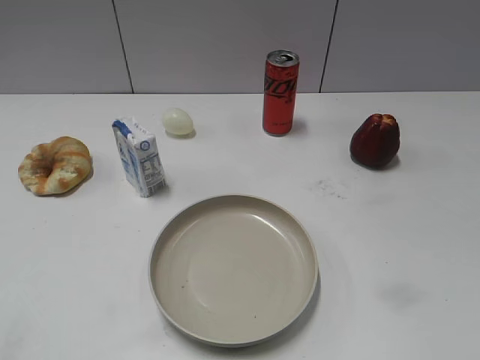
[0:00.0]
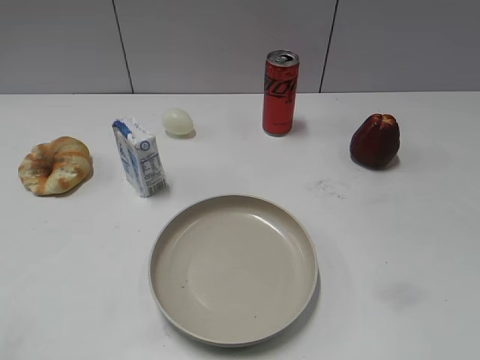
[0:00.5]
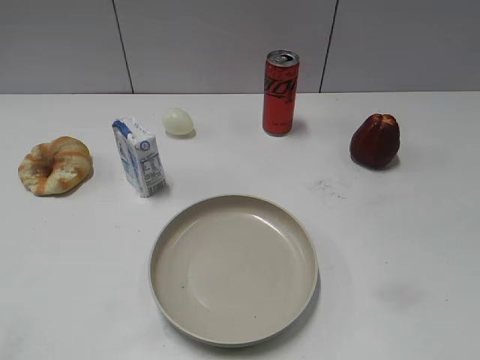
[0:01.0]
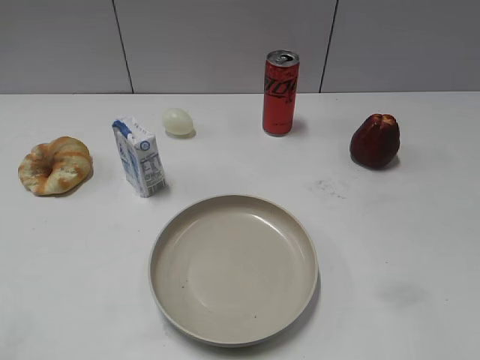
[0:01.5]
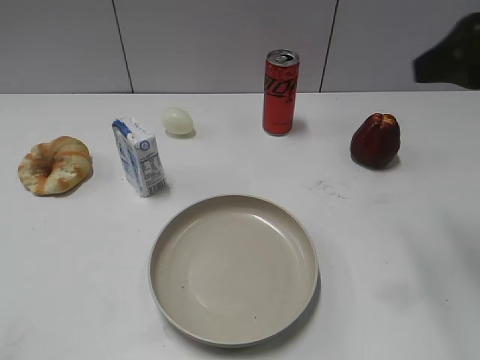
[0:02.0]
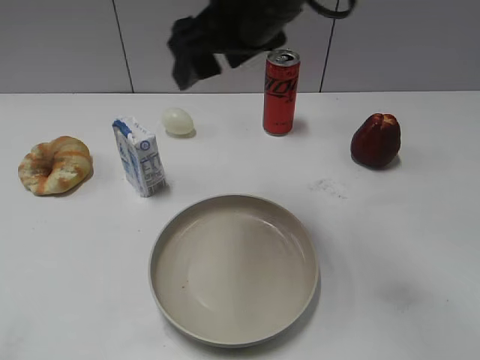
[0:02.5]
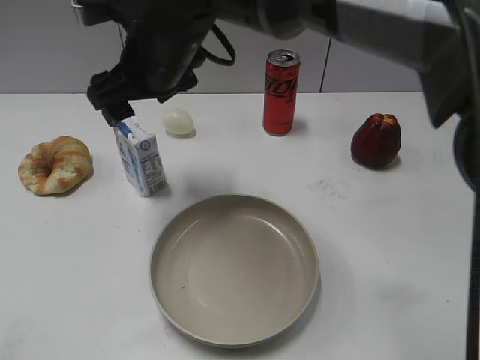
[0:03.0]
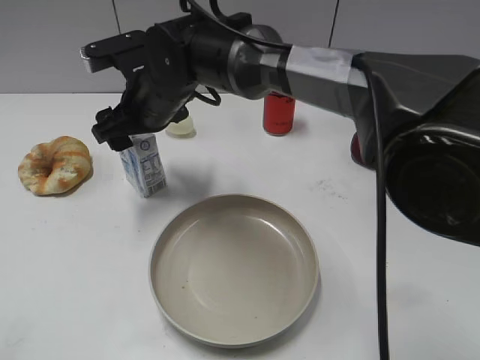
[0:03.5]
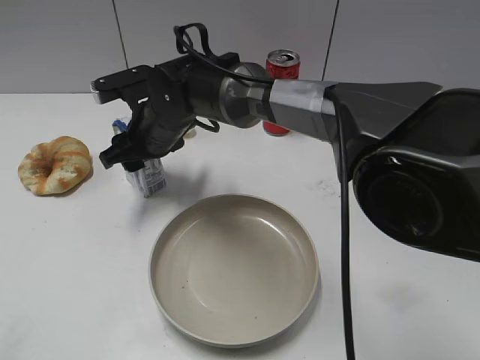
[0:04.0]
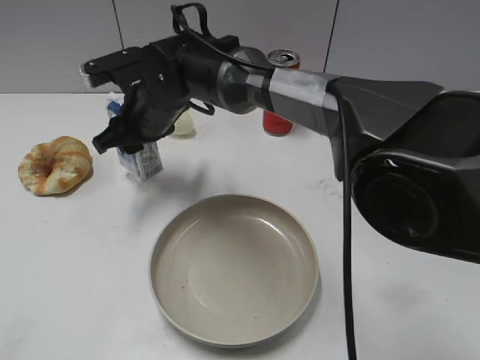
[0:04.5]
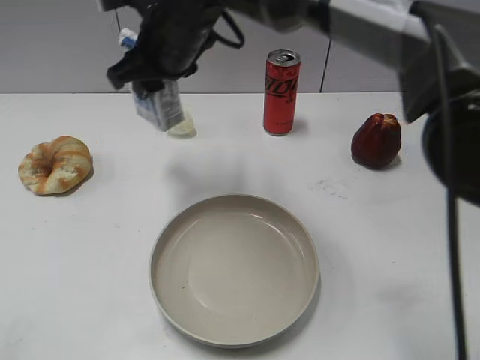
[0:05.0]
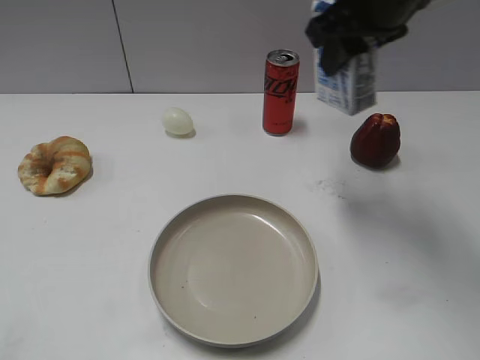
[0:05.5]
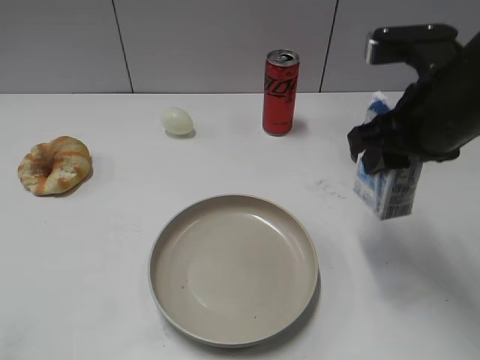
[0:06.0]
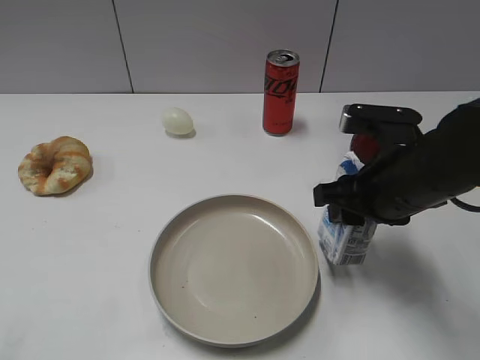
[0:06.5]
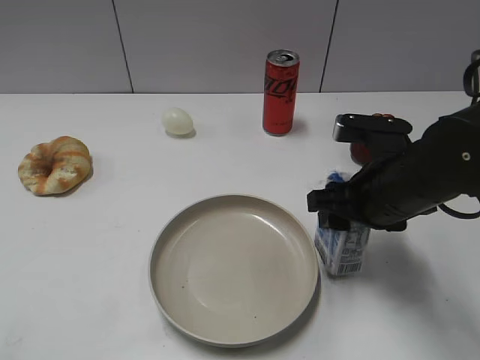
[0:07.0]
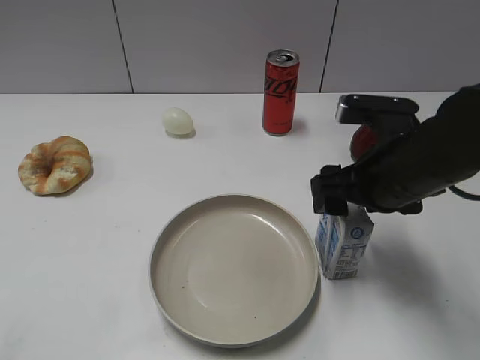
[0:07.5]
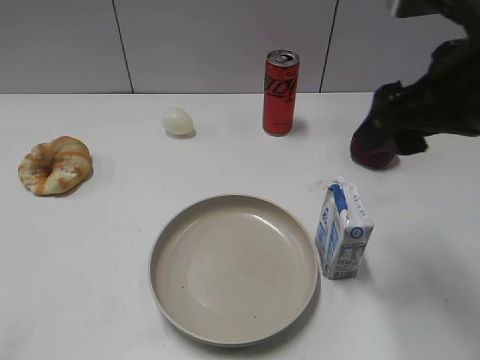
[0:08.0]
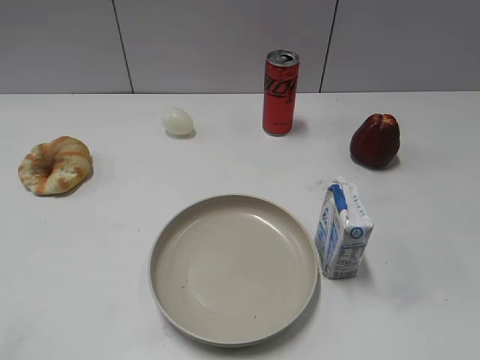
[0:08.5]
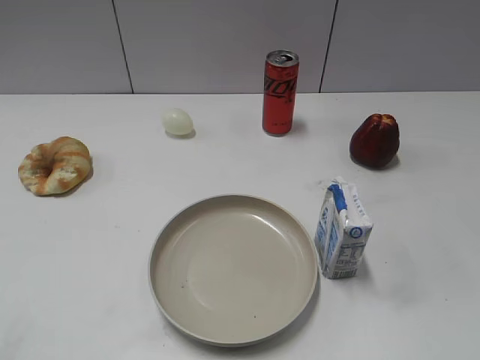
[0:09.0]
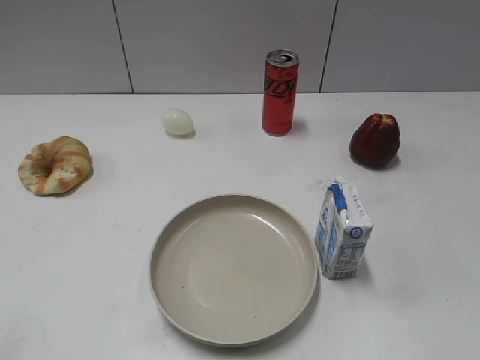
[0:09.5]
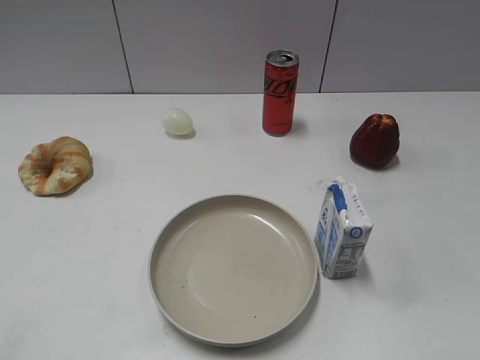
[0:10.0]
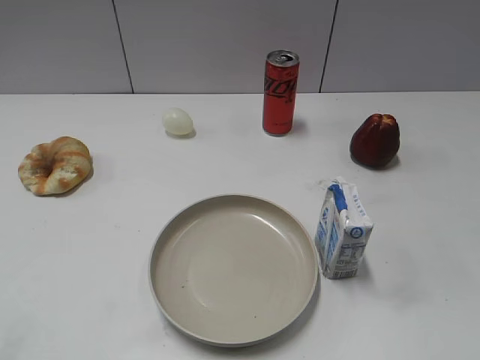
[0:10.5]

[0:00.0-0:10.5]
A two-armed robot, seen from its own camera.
Step, 0:01.0 to 0:04.0: Grasp the milk with right gripper.
Step, 0:04.5 to 0:07.5: Place the milk on the table with right gripper.
0:02.0 to 0:04.0: The right gripper is displaced to the left, downward and forward by roughly 40 cm, and closes up.
0:04.0 to 0:06.5: The right gripper is displaced to the right and backward by about 30 cm.
0:06.5 to 0:08.5: The right gripper is displaced backward, upward and to the right by approximately 25 cm, and opens up.

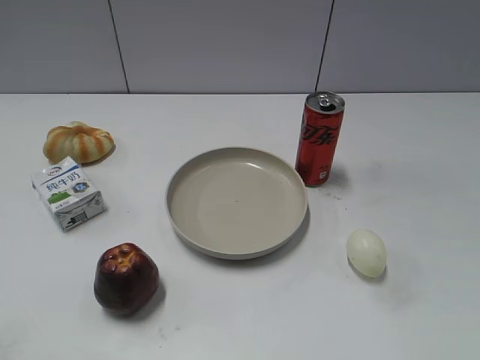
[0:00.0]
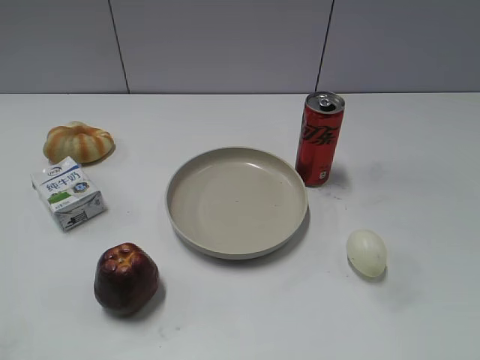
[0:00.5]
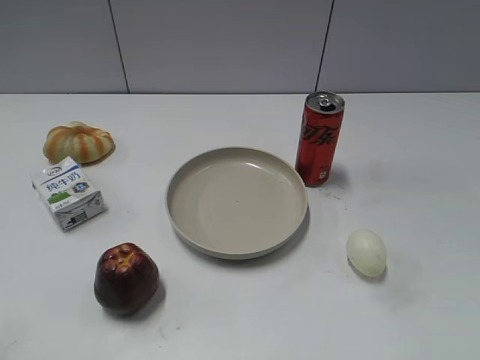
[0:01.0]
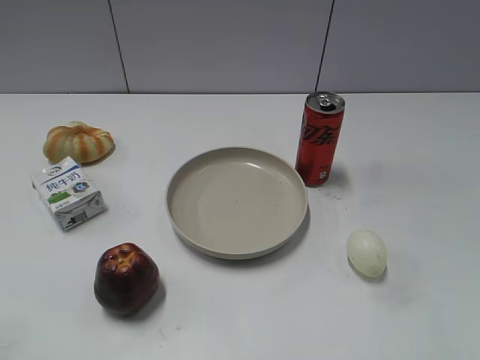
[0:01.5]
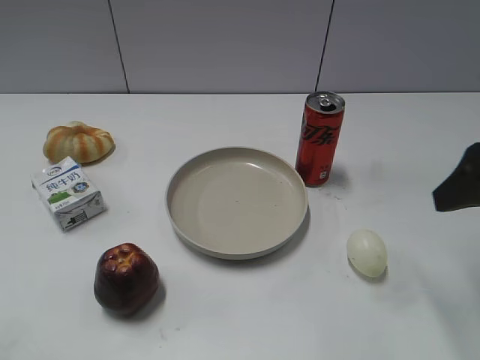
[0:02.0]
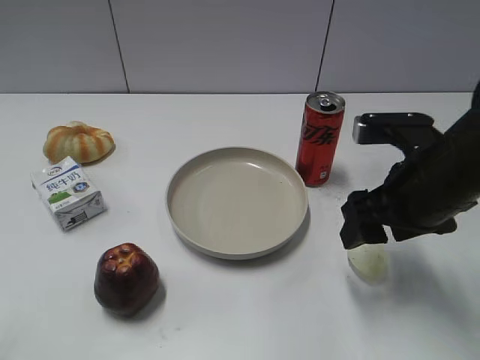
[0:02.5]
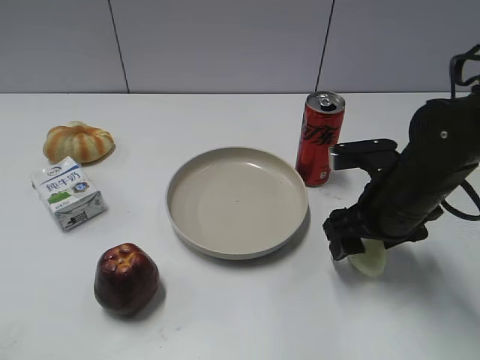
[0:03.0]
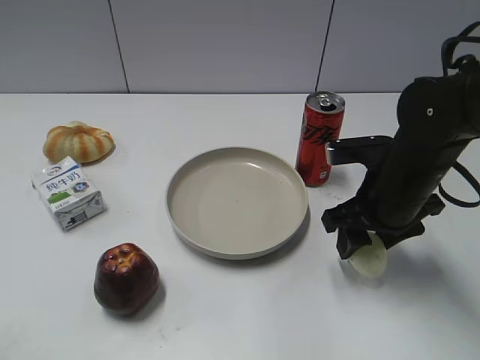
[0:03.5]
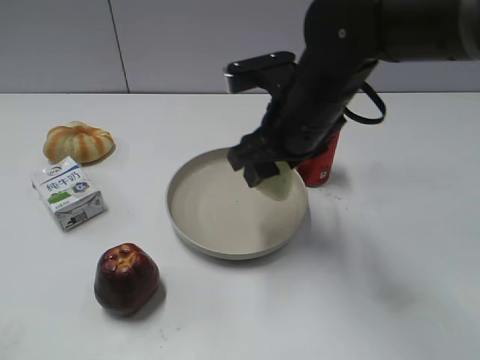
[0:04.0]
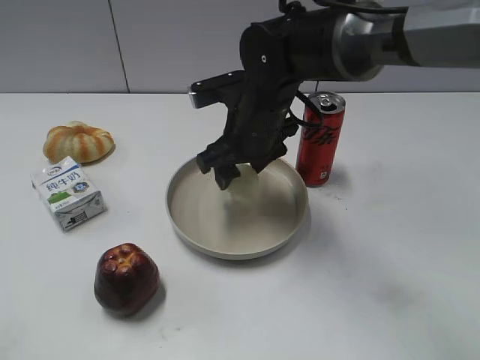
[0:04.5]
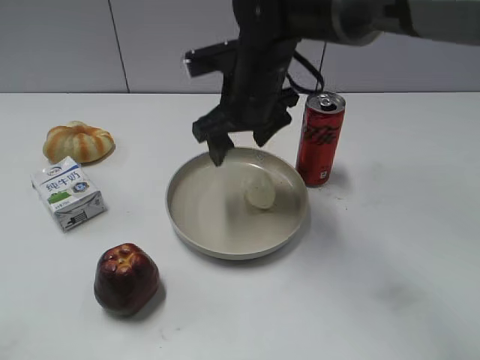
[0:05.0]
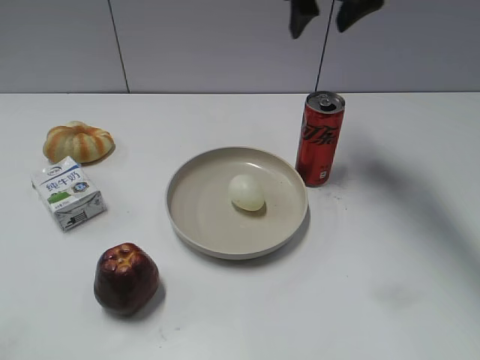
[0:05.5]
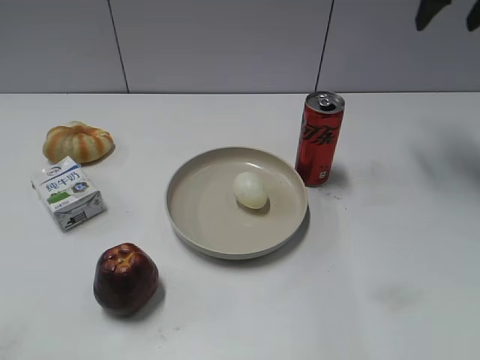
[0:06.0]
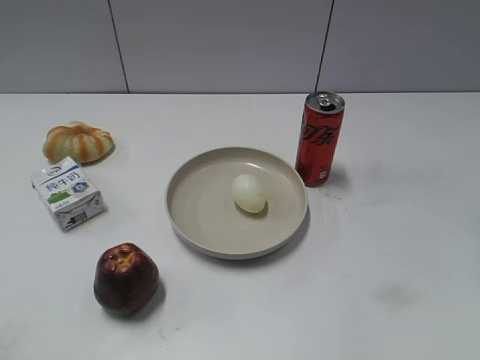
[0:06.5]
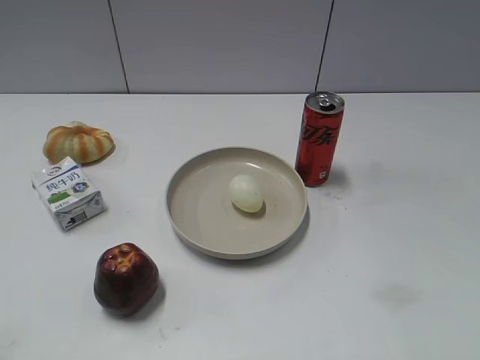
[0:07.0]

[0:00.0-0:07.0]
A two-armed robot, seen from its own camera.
Step, 0:01.0 to 0:03.0: Grasp the egg with right gripper.
Step, 0:03.5 to 0:04.5: Place the egg on the plate with right gripper.
0:02.0 to 0:03.5: The right gripper goes some 15 cm downward, to the left and forward, and closes up.
0:03.5 to 0:05.0: The right gripper goes some 20 cm to the left, forward and upward, and opens.
0:05.0 to 0:07.0: The right gripper is displaced to the right and backward by roughly 40 cm.
